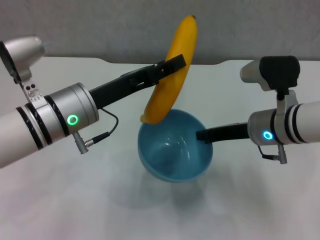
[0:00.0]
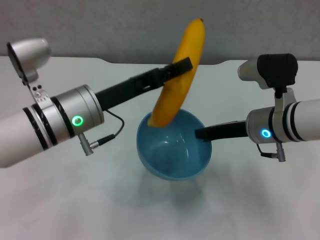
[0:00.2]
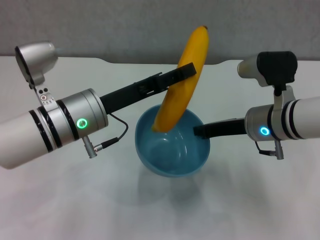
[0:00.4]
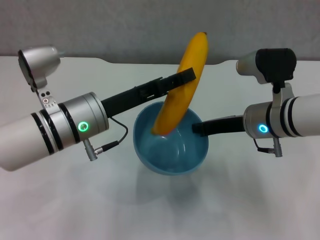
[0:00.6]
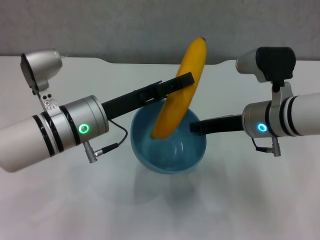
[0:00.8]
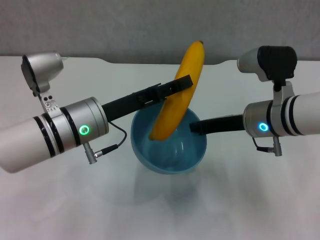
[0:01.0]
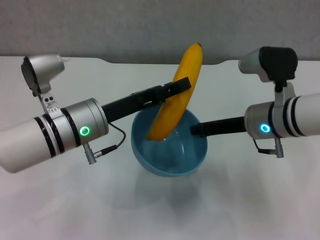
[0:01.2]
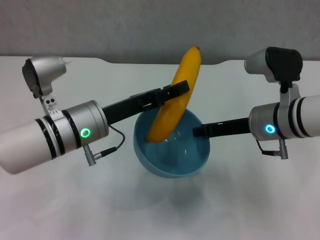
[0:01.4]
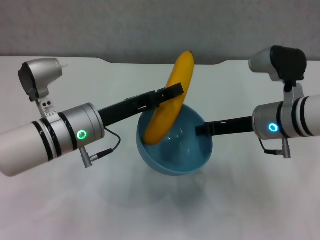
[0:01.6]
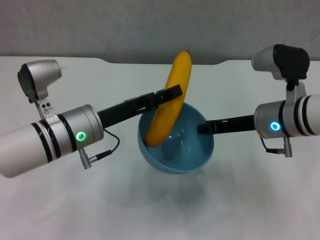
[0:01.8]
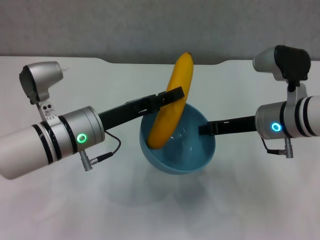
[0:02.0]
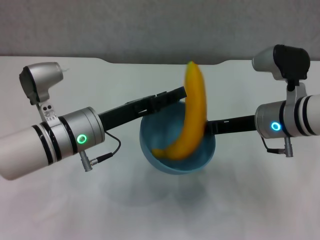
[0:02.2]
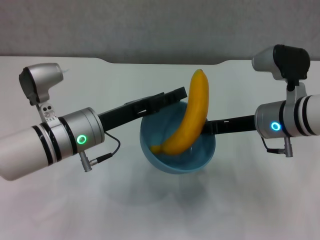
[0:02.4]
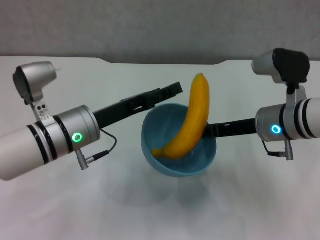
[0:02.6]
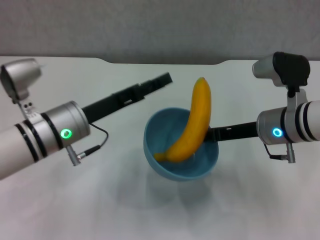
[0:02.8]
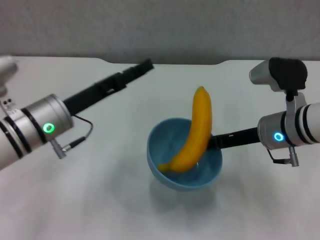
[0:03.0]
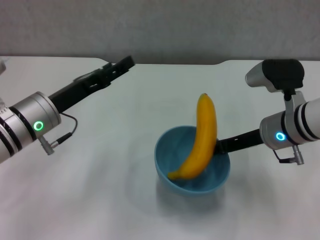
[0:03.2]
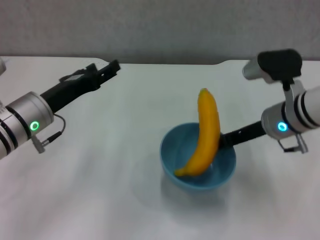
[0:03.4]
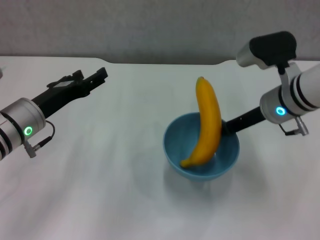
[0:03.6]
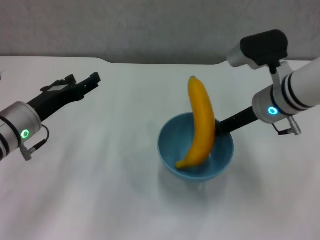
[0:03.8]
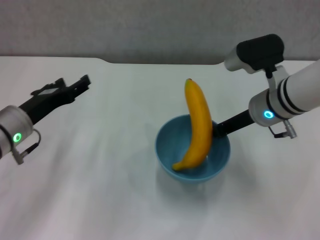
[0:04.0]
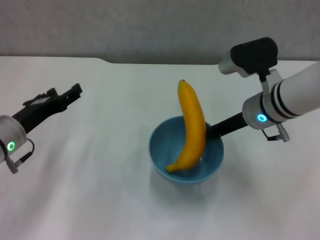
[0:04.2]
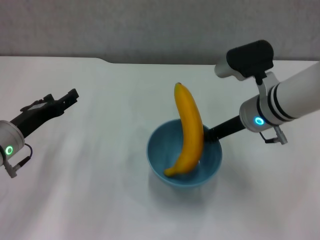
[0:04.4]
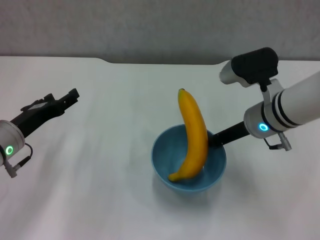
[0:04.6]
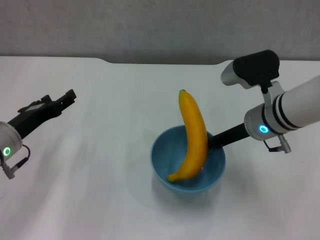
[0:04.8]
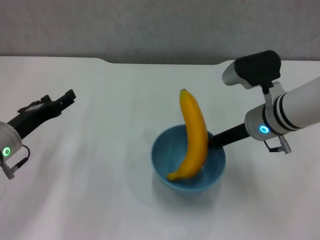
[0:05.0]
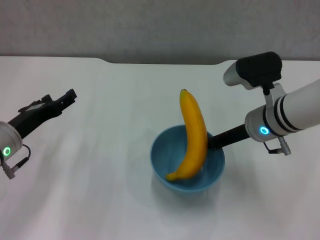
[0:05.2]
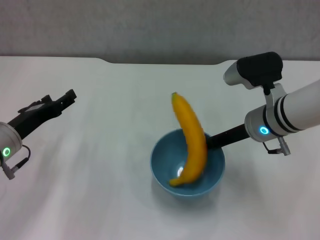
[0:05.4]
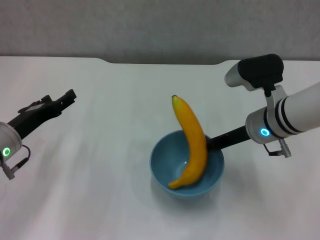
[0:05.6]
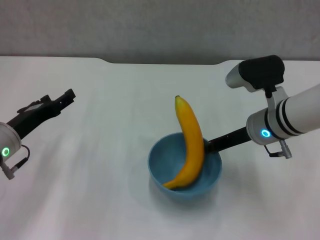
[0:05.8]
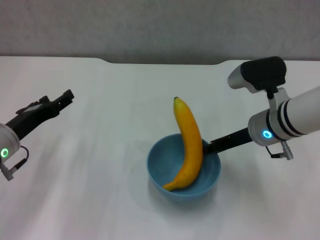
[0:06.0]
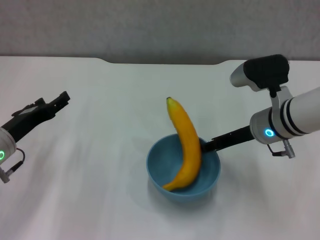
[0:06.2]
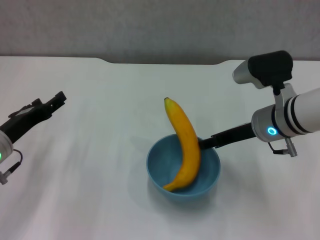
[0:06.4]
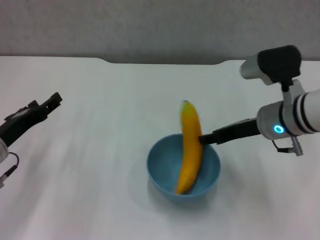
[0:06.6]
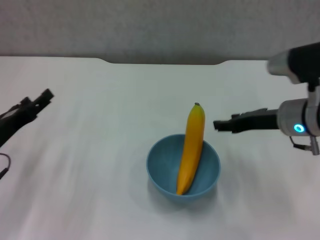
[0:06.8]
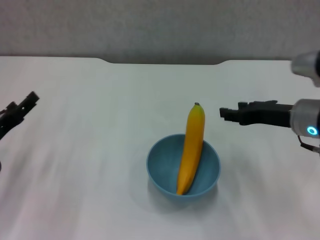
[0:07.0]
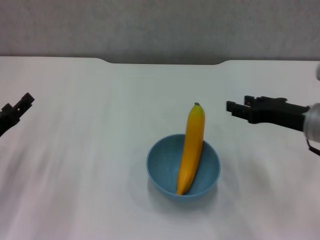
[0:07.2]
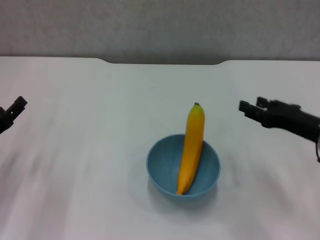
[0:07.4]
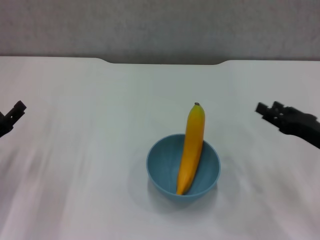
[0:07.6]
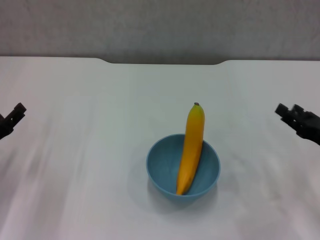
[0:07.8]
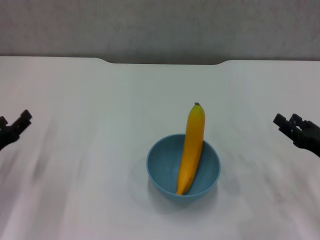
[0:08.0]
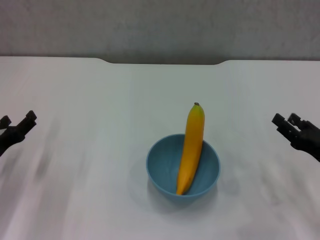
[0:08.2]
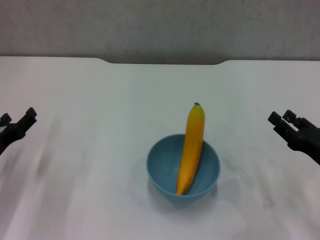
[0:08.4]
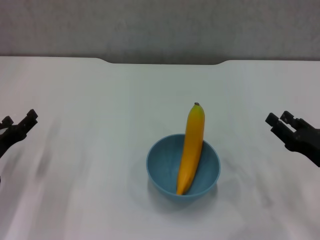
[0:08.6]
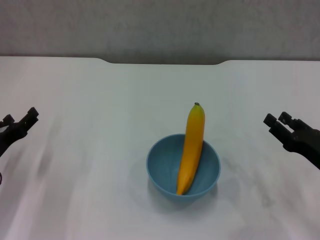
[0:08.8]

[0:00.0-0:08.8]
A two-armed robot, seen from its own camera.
Step, 0:00.0 to 0:02.2: Place the banana in the blue bowl with left gripper.
Step, 0:02.4 to 0:06.4: Place the bowl on the table with right gripper.
0:01.4 to 0:03.0: The left gripper opens its fingers.
0:03.0 to 0:04.4: The left gripper travels to the left and downward by roughly 10 cm.
0:04.4 to 0:05.8: There are only small adjustments of the grippers.
0:05.8 to 0:07.4: The left gripper shifts roughly 5 cm to the left; the right gripper goes roughly 10 cm to the right and backward, and opens.
0:07.4 to 0:08.8: The right gripper heads downward, covering some 5 cm.
